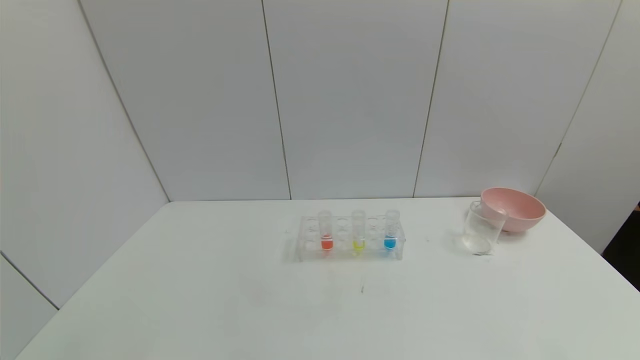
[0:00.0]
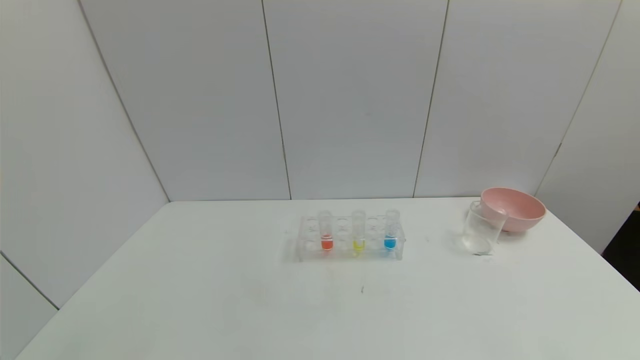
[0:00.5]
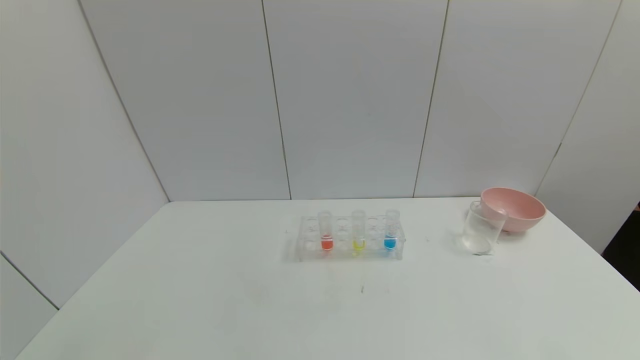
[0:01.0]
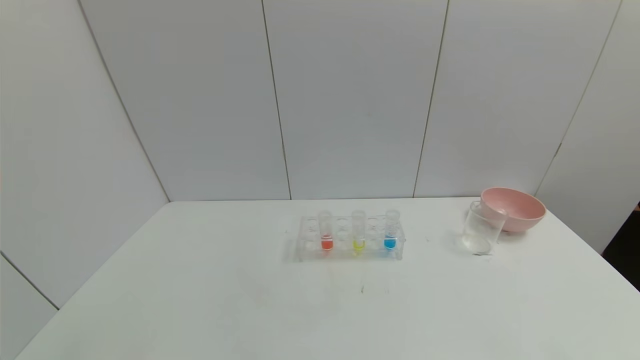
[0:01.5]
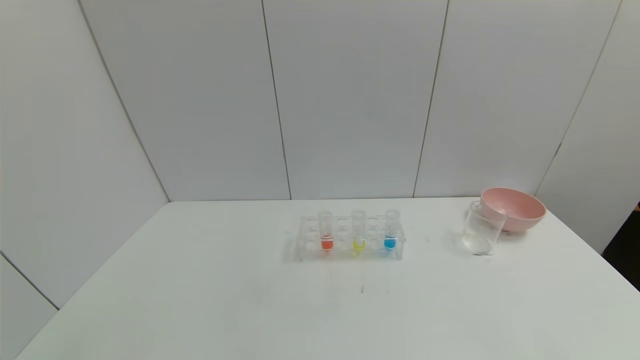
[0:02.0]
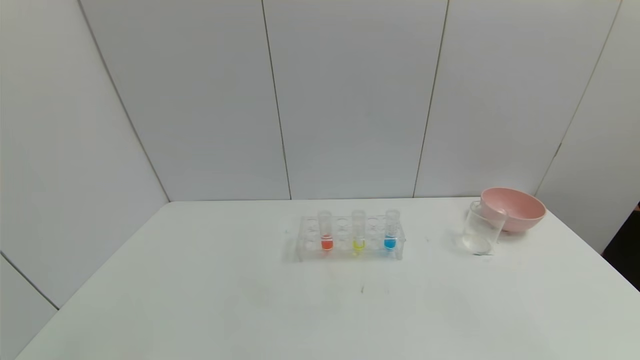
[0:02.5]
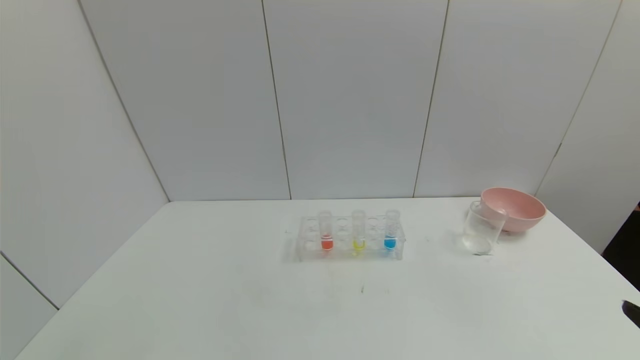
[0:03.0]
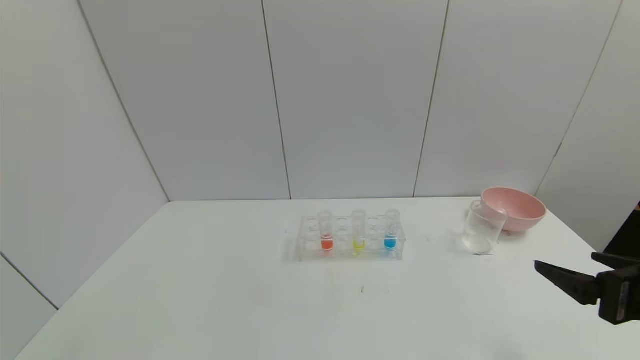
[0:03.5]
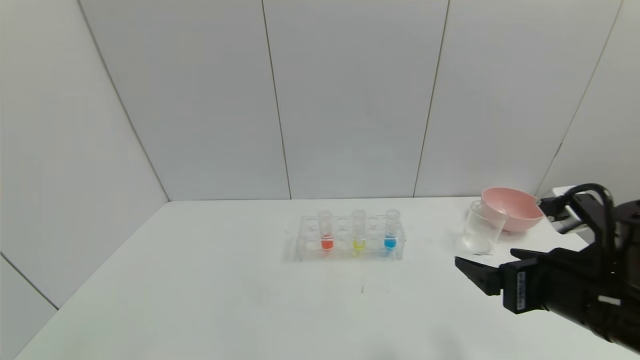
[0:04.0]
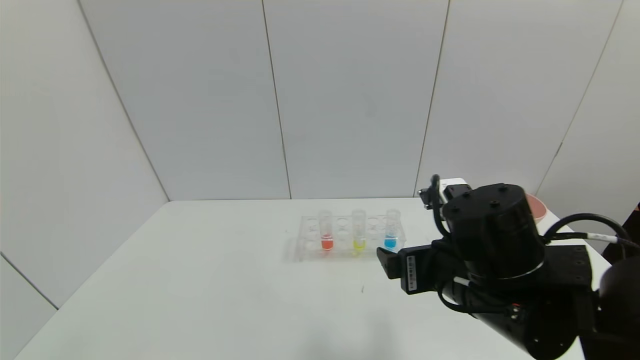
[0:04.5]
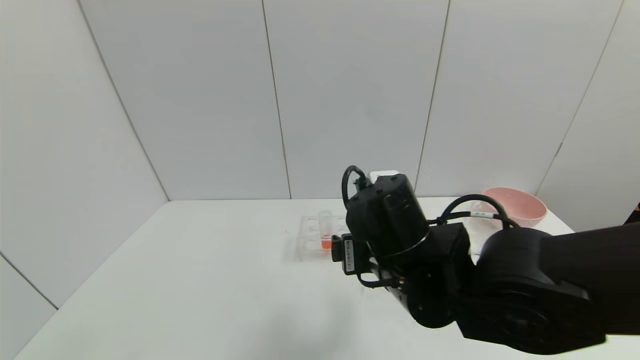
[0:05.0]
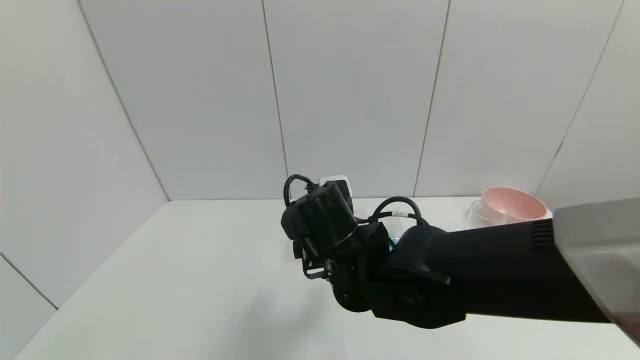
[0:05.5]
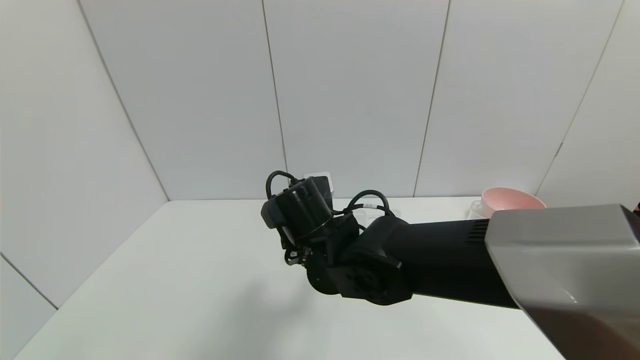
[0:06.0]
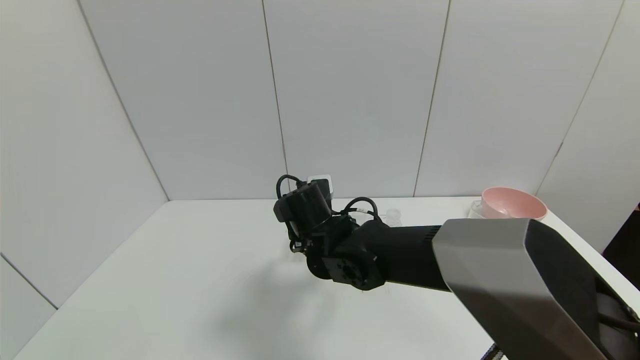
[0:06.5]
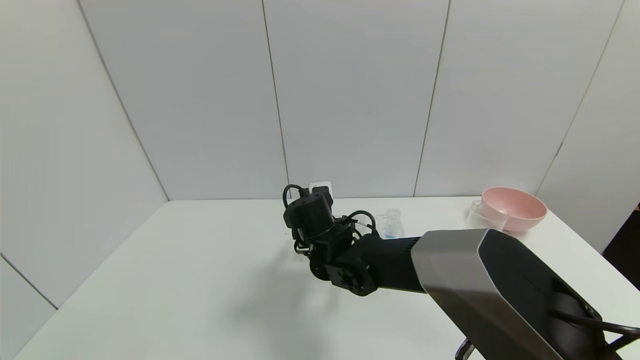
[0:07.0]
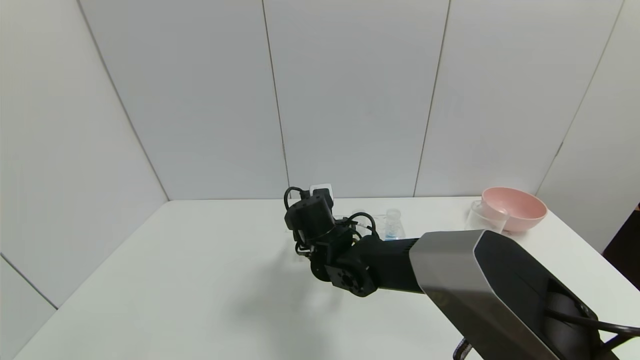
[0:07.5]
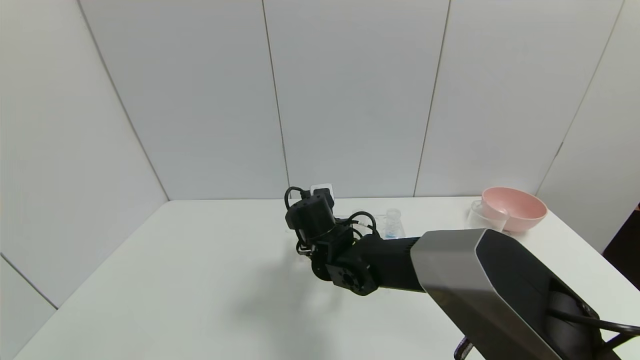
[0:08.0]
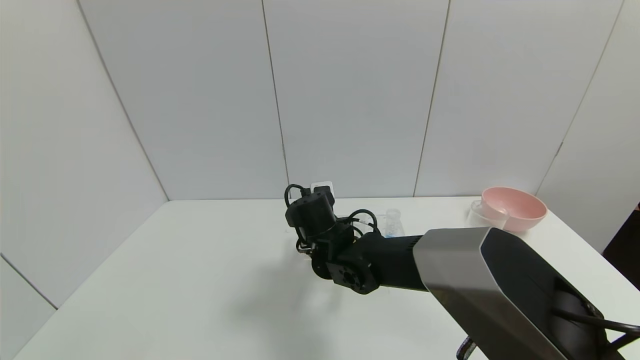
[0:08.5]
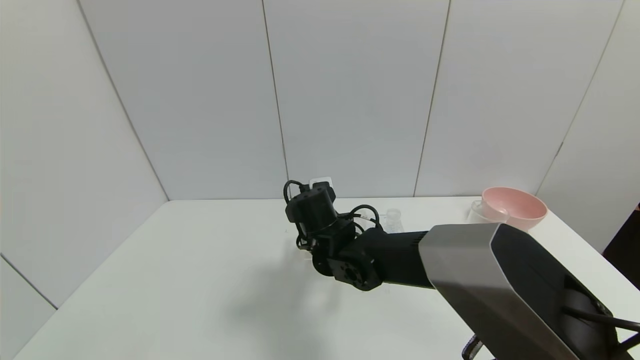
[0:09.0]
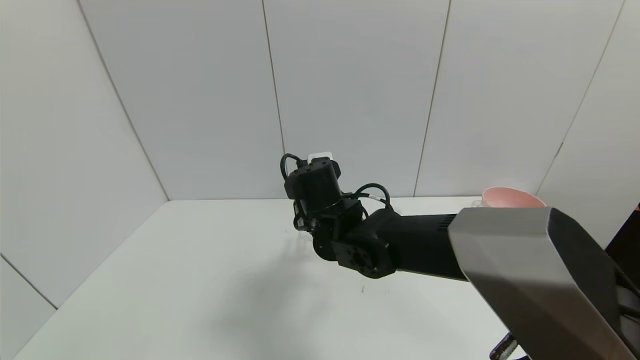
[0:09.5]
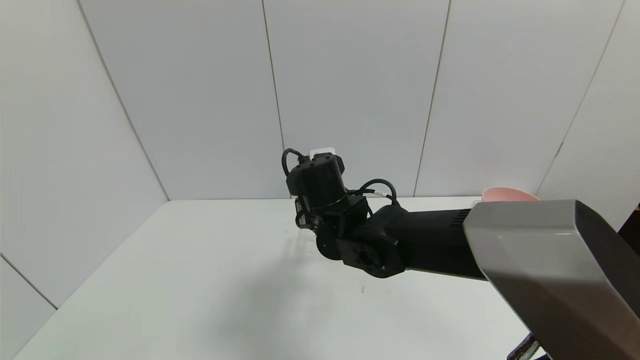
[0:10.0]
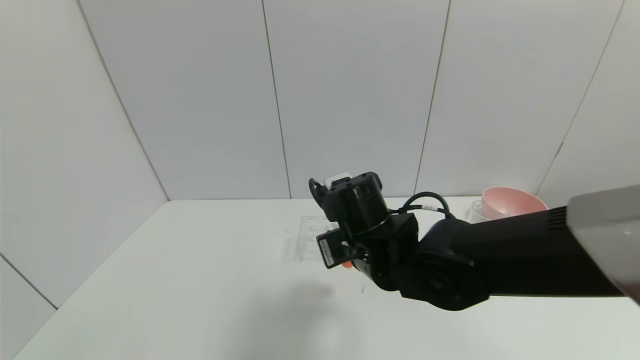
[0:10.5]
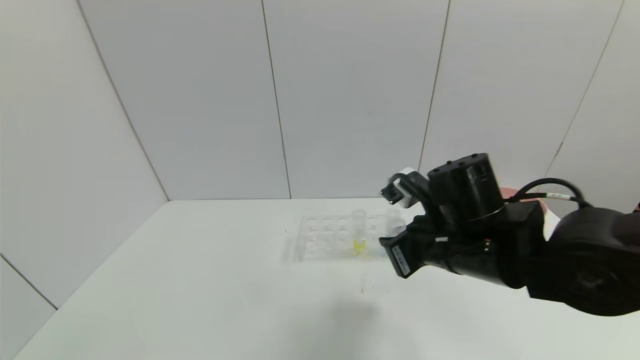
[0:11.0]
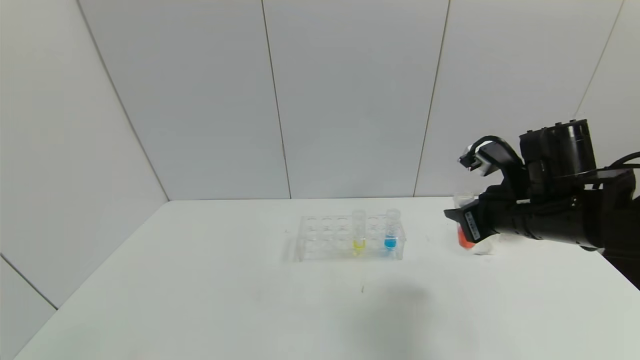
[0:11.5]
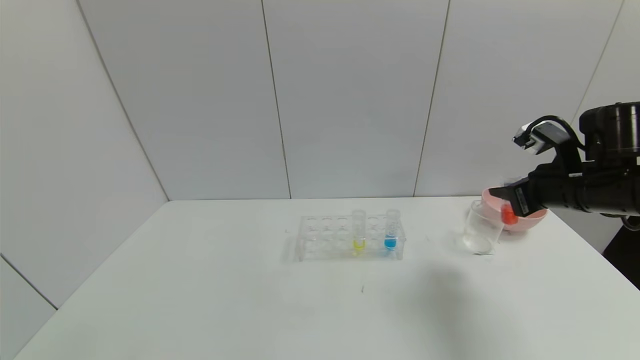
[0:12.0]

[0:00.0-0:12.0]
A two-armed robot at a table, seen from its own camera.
Task of the whole recording: pick up the test tube with yellow pigment and the test tube with red pigment by grippers and pour them into the beaker.
Step, 0:00.0 to 0:08.5: Grasp the red reagent with the right gripper.
0:00.0 to 0:02.0: Both grippers stay about where they are.
0:02.0 to 0:04.0: The right gripper moves forward, to the left and upward, roughly 25 cm.
0:04.0 to 0:06.0: The right gripper moves to the left and forward, roughly 30 cm.
0:06.0 to 0:08.0: The right gripper is displaced forward and downward by some 10 cm, and closes its fingers.
0:08.0 to 0:10.0: The right gripper heads upward, covering about 5 cm, and closes up.
0:10.0 to 0:12.0: The right gripper moves to the right, about 35 cm.

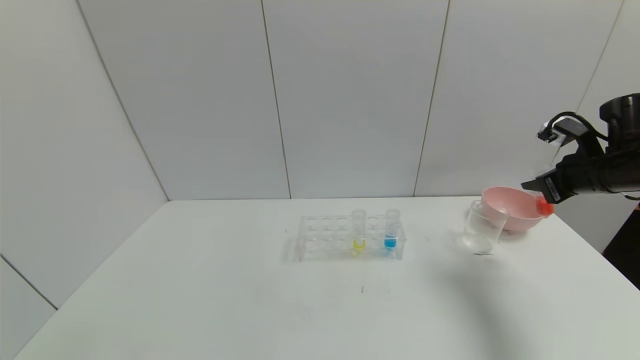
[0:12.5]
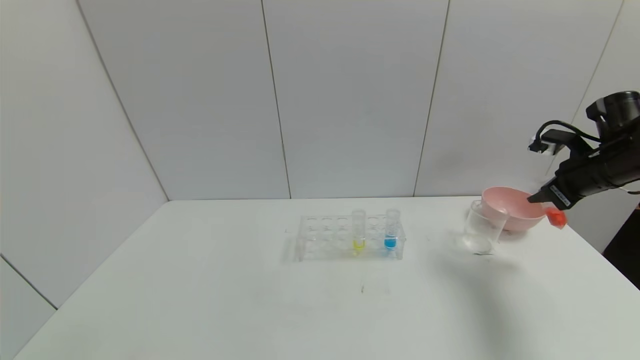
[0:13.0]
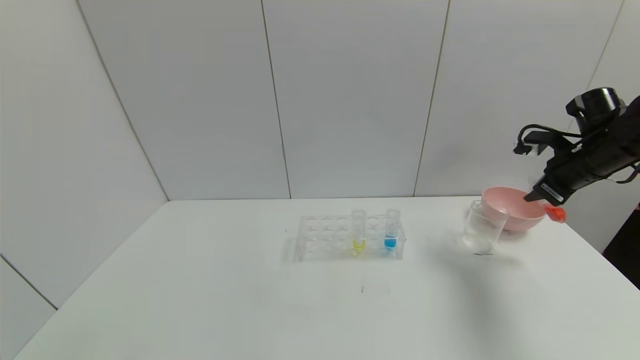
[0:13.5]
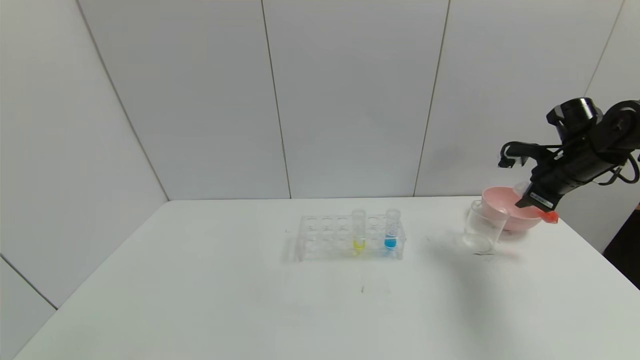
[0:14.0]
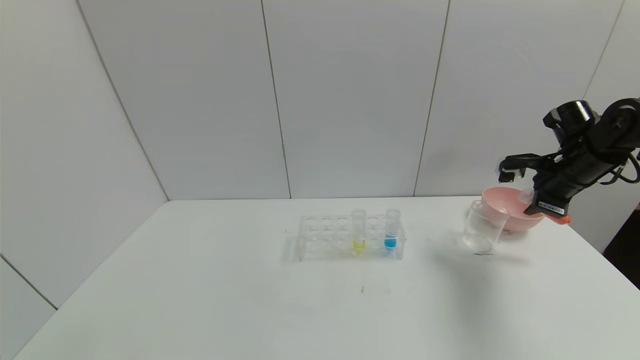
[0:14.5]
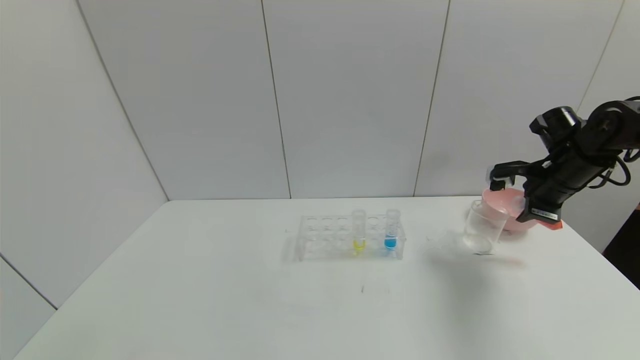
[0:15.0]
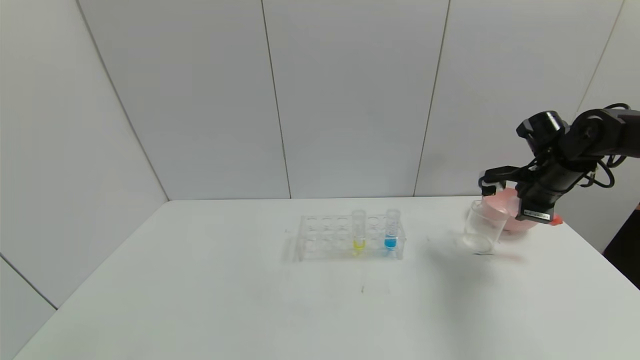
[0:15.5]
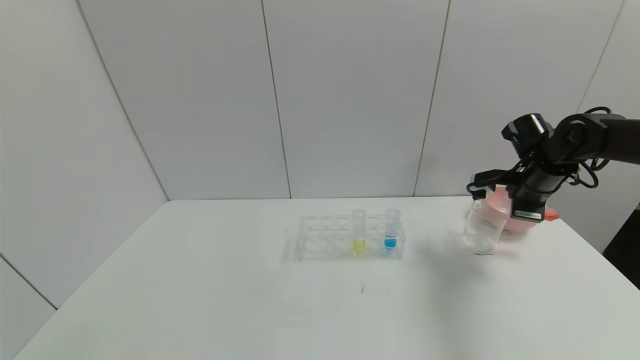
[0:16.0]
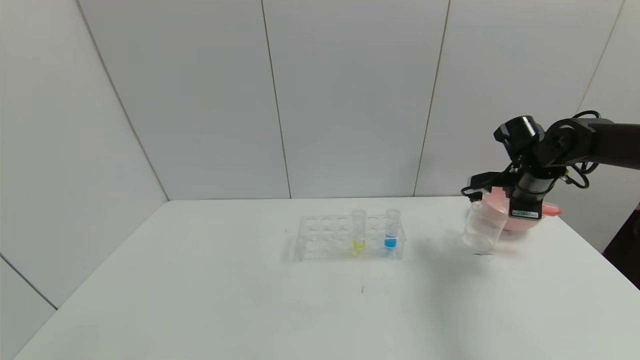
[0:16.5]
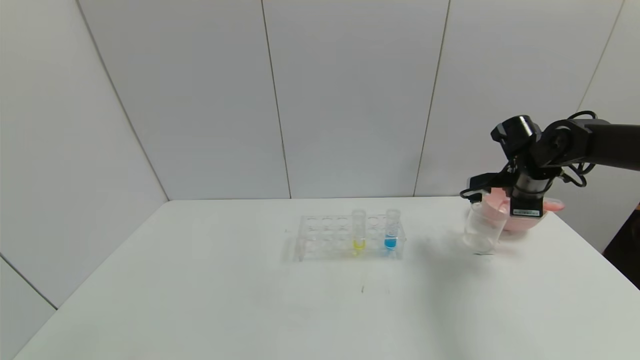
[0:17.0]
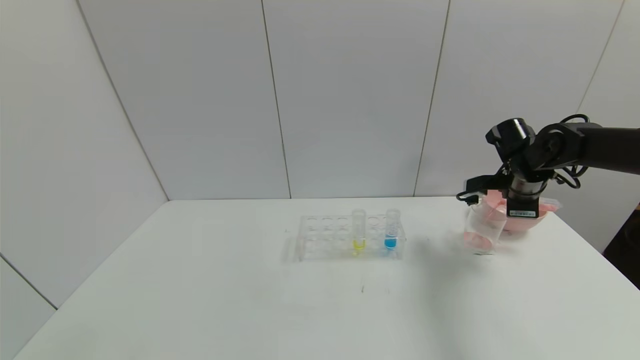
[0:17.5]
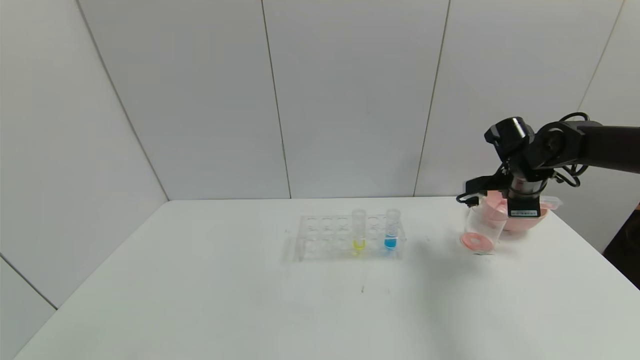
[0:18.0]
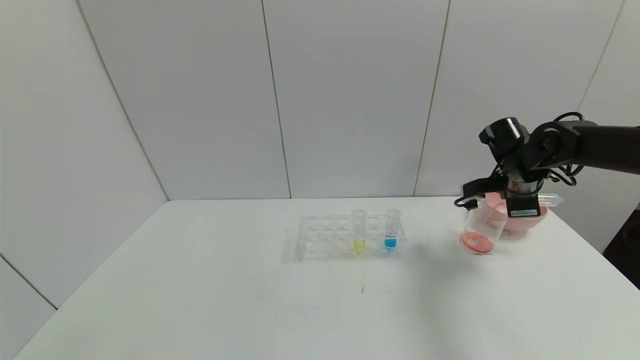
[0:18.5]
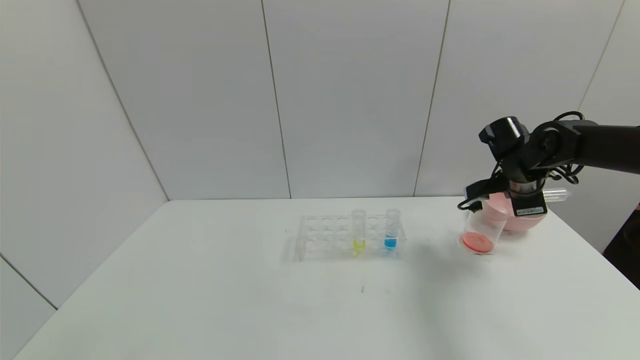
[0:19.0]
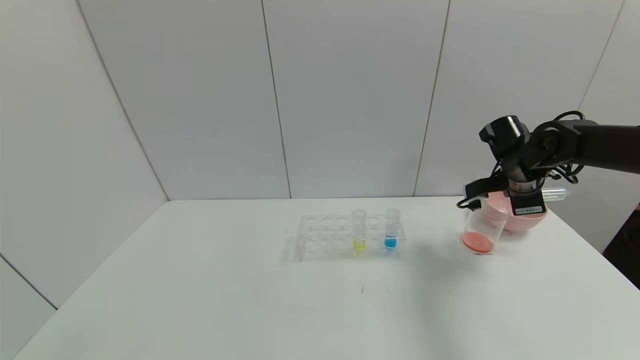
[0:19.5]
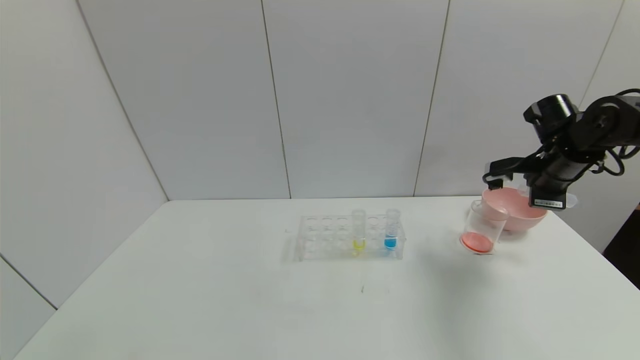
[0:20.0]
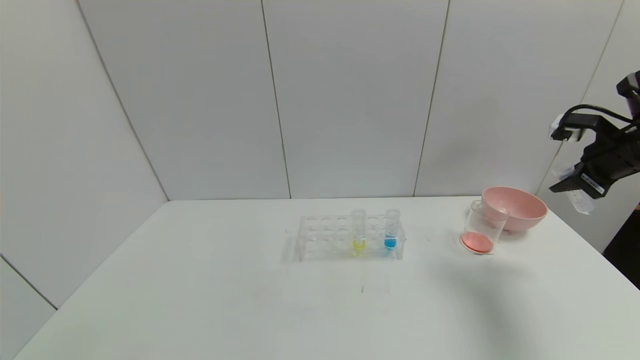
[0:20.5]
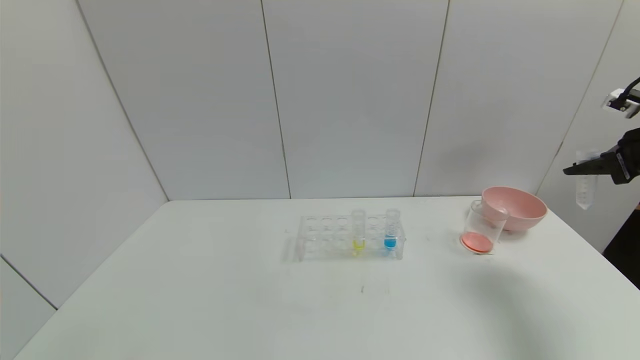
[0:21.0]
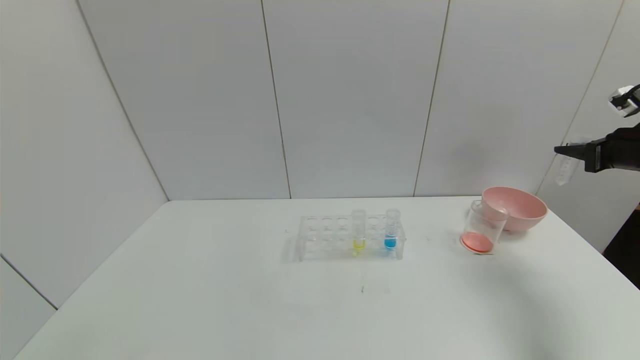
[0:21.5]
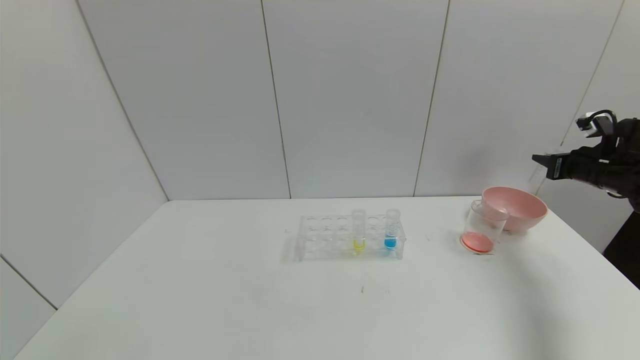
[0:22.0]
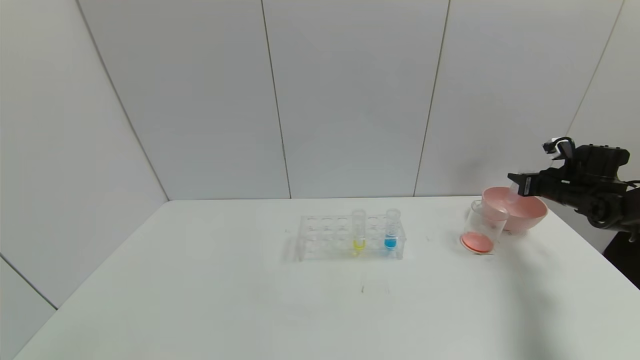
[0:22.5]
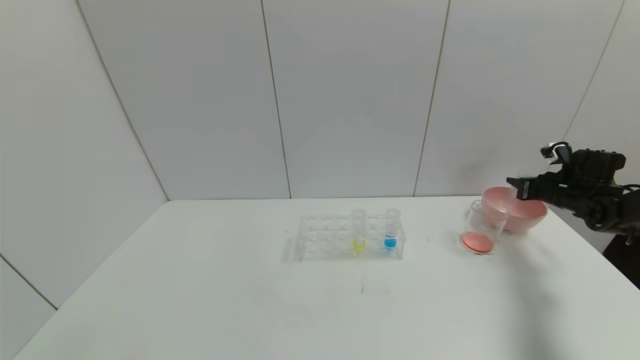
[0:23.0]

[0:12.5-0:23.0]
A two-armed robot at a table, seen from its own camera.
Task of the whole recording: pick up the test tube with yellow pigment and the test tube with red pigment by grippers and pour them into the beaker.
Step, 0:12.5 to 0:19.0: Pour the red reagent into the graduated cylinder with the right gripper.
0:12.5 to 0:14.5: The right gripper changes place by roughly 5 cm.
0:14.5 to 0:16.5: The right gripper shifts by some 5 cm.
0:16.5 to 0:19.0: The grippers move only a little.
0:19.0 to 0:21.0: The right gripper goes some 20 cm to the right, upward and backward.
0:21.0 to 0:23.0: The right gripper shifts roughly 20 cm downward and forward.
